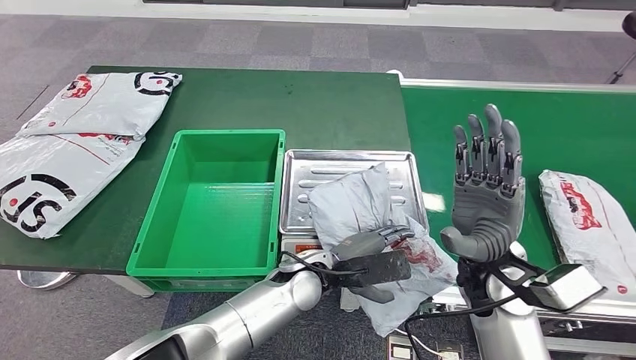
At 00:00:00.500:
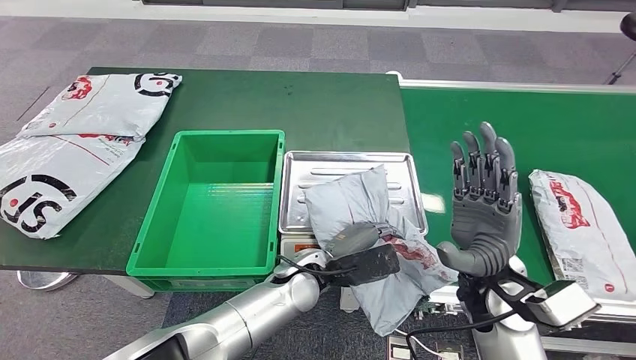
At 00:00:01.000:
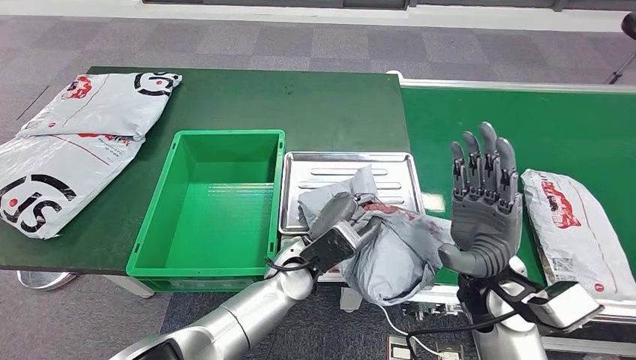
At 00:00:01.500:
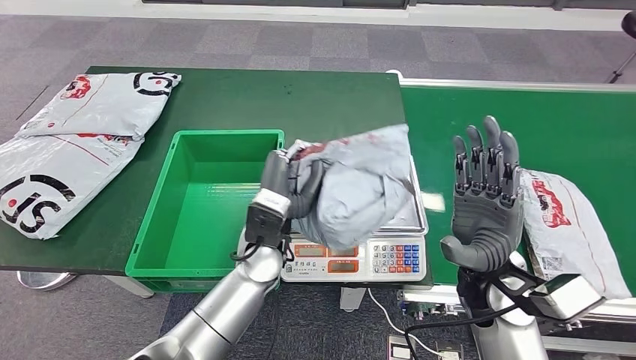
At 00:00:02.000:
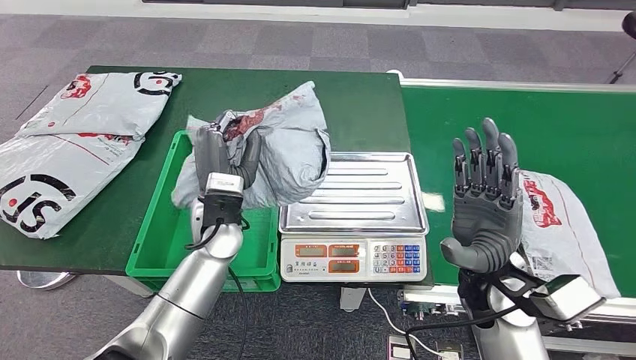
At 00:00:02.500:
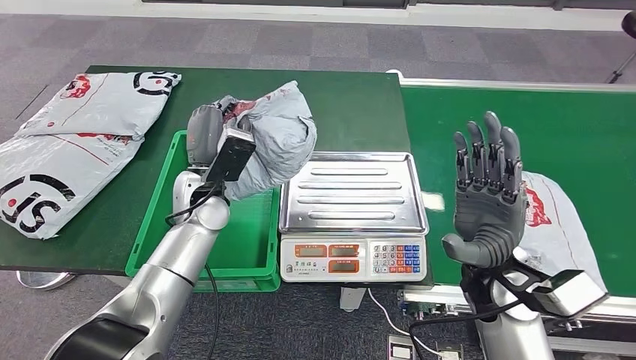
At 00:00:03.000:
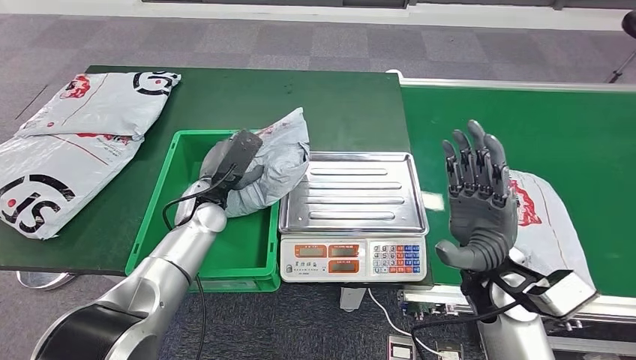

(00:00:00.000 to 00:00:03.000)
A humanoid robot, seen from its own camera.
Step, 00:00:00.000 - 00:00:02.000: Pick up the parcel from the inbound machine.
Step, 00:00:02.500 - 00:00:03.000: Put the parcel inside the courier box.
